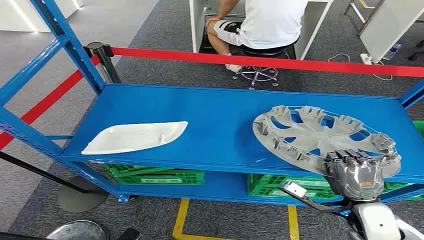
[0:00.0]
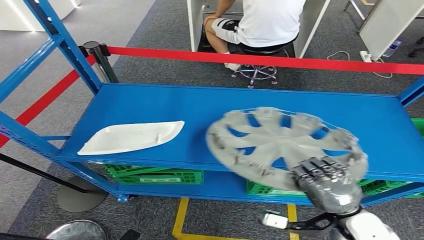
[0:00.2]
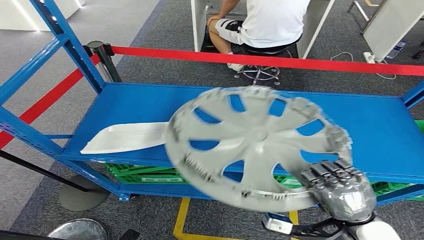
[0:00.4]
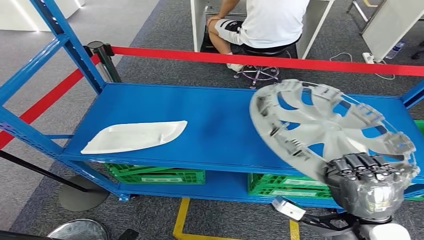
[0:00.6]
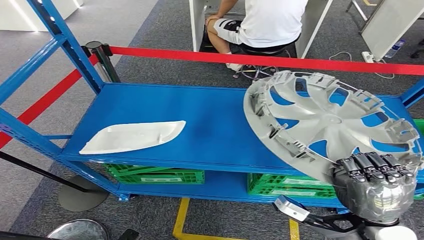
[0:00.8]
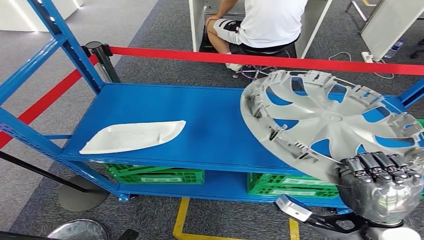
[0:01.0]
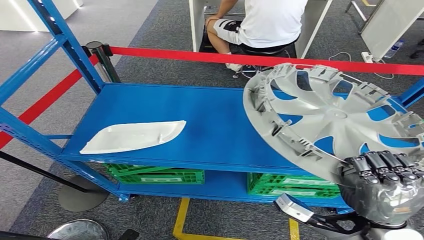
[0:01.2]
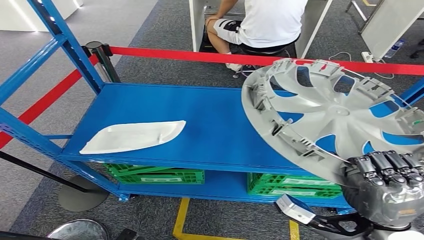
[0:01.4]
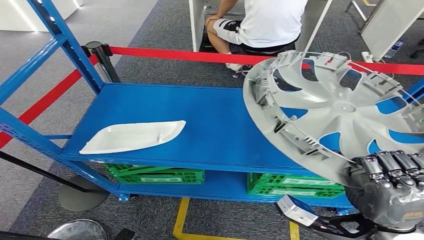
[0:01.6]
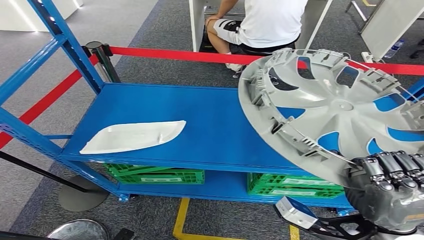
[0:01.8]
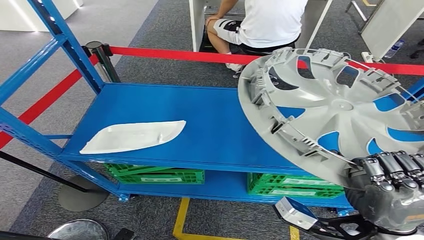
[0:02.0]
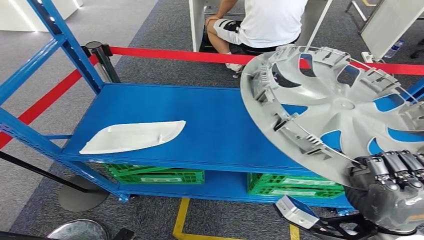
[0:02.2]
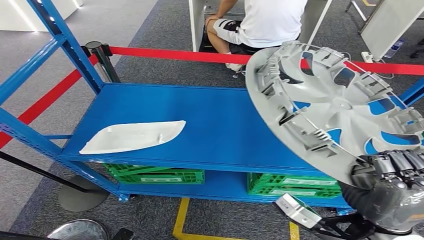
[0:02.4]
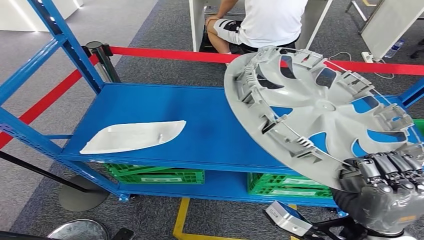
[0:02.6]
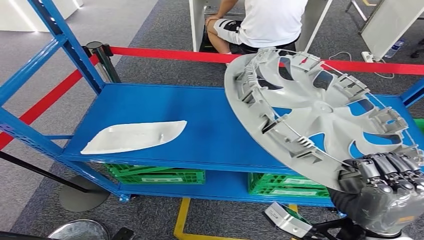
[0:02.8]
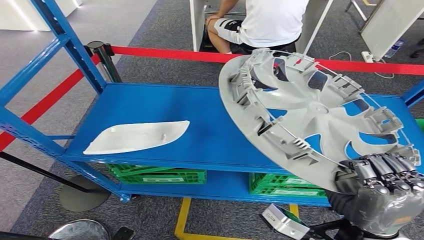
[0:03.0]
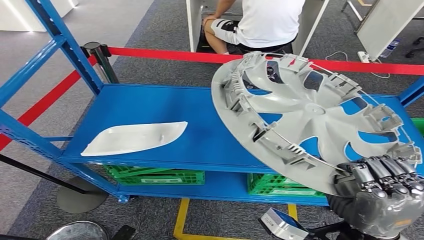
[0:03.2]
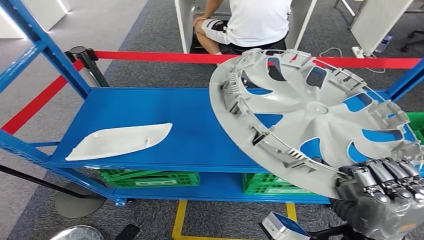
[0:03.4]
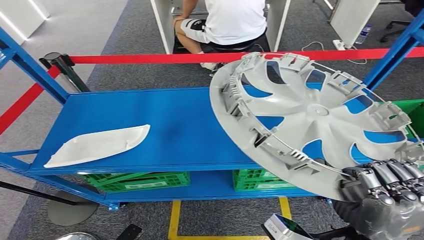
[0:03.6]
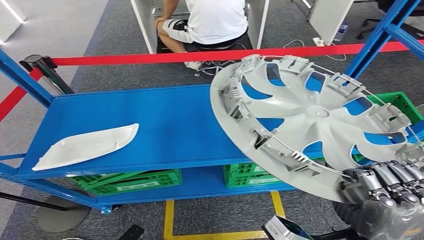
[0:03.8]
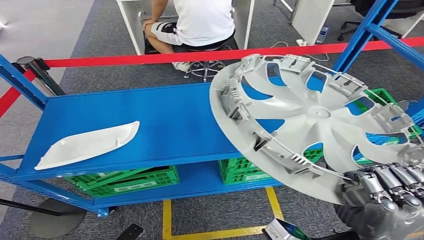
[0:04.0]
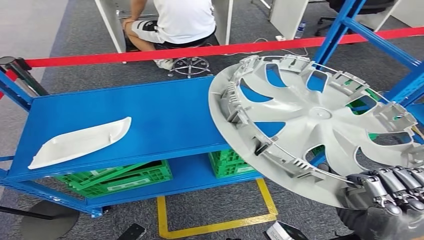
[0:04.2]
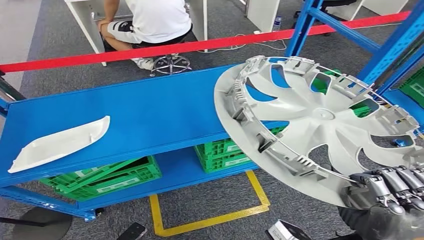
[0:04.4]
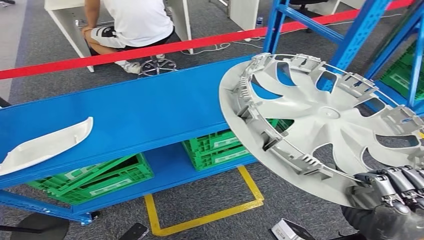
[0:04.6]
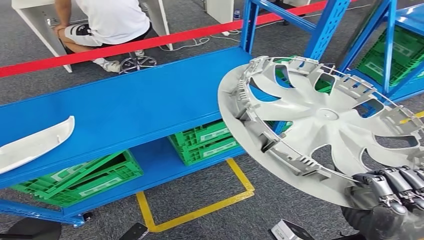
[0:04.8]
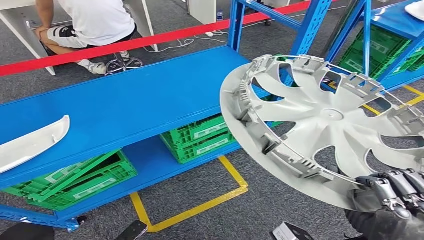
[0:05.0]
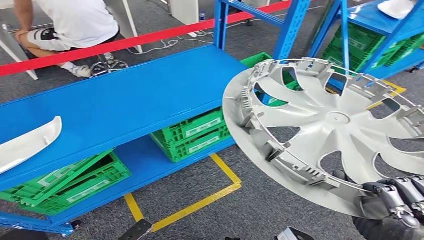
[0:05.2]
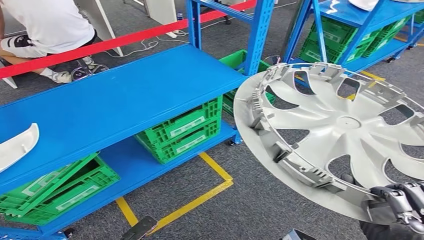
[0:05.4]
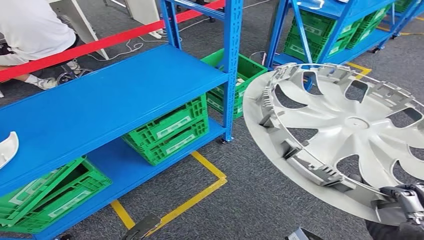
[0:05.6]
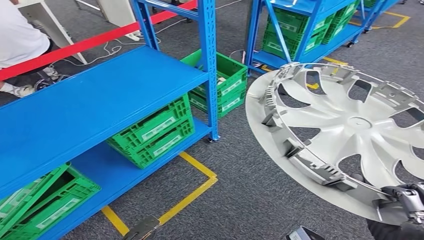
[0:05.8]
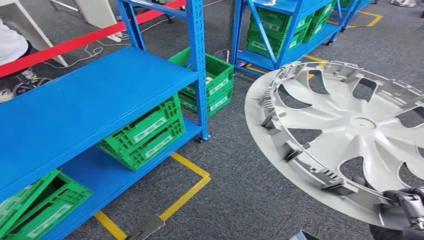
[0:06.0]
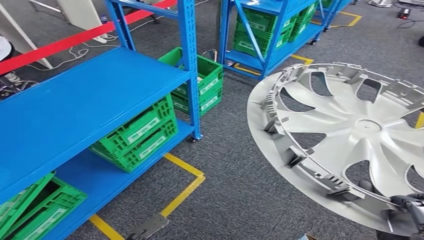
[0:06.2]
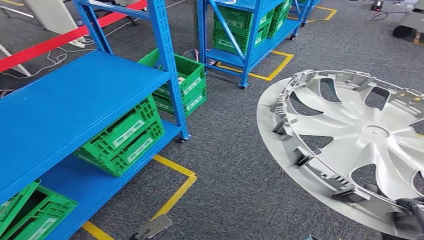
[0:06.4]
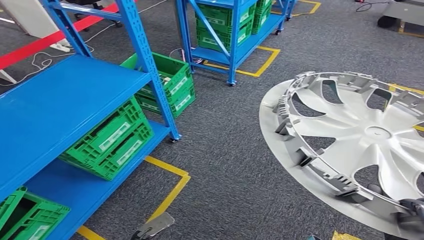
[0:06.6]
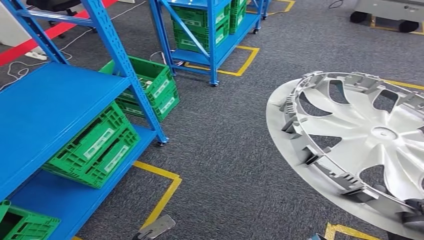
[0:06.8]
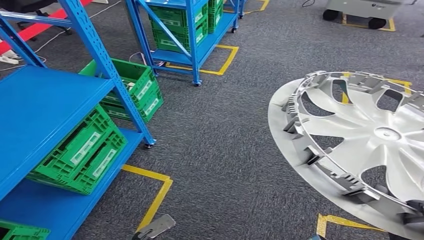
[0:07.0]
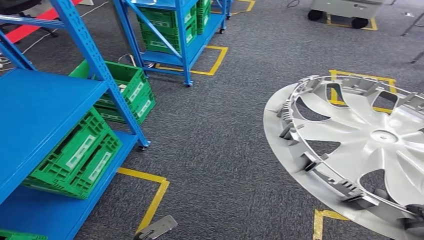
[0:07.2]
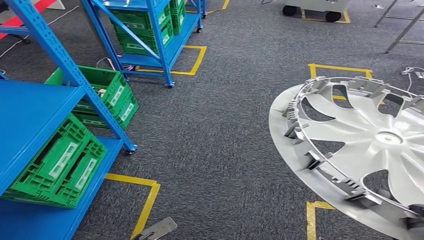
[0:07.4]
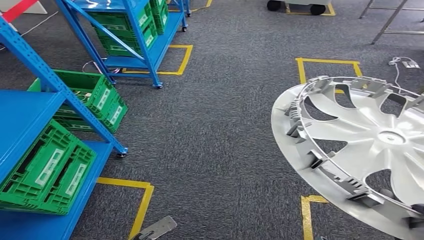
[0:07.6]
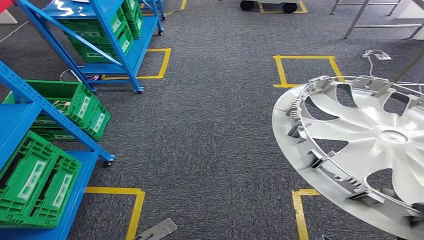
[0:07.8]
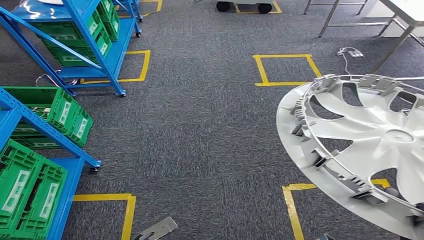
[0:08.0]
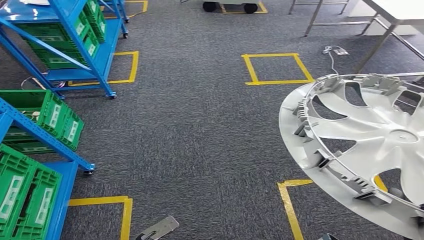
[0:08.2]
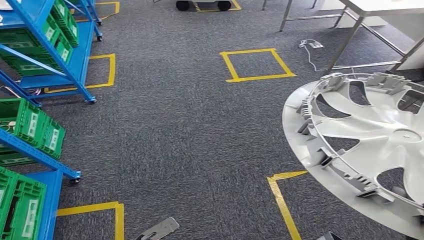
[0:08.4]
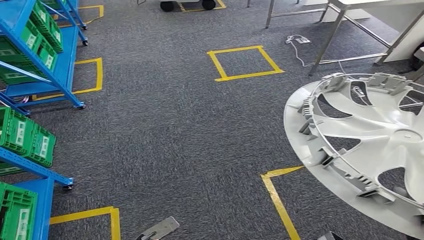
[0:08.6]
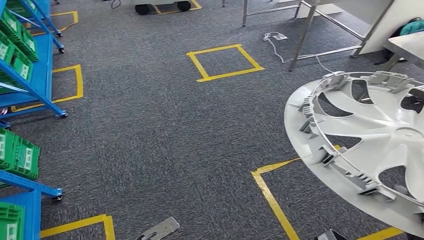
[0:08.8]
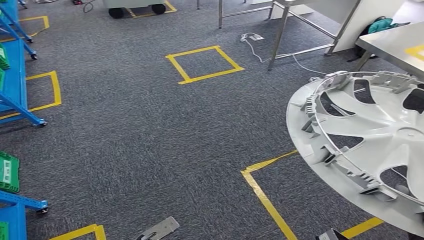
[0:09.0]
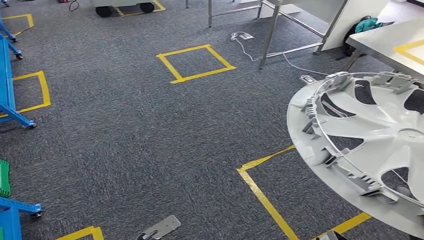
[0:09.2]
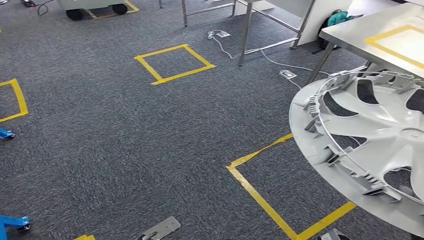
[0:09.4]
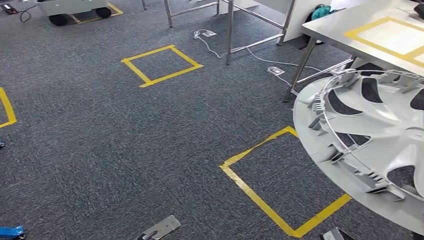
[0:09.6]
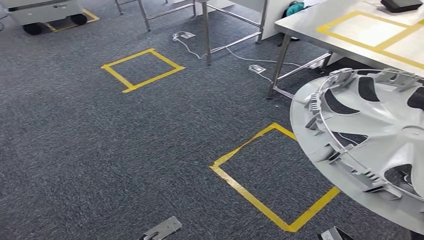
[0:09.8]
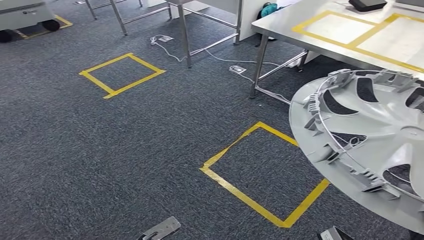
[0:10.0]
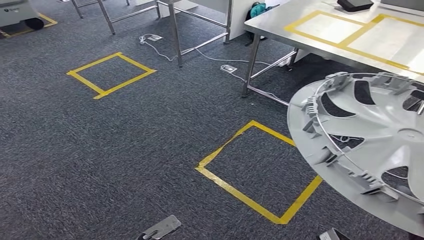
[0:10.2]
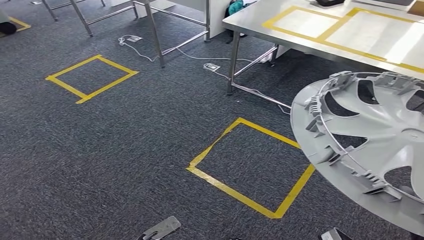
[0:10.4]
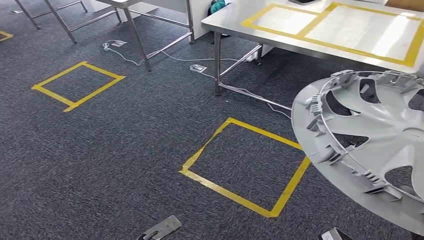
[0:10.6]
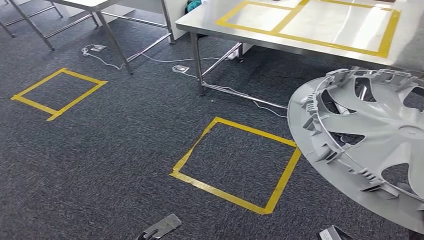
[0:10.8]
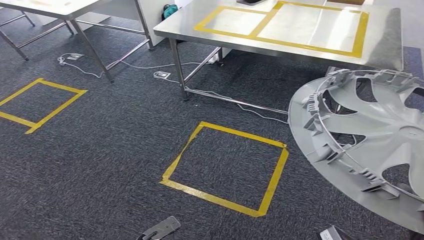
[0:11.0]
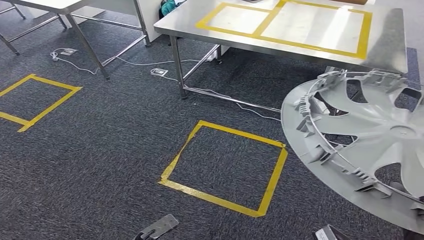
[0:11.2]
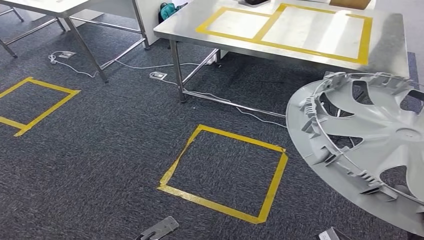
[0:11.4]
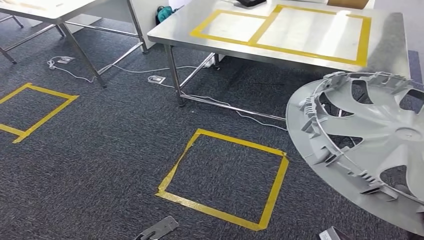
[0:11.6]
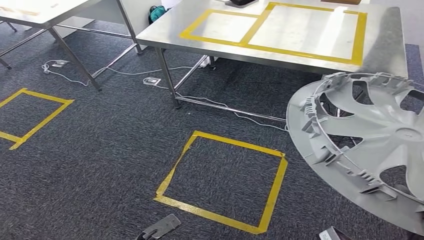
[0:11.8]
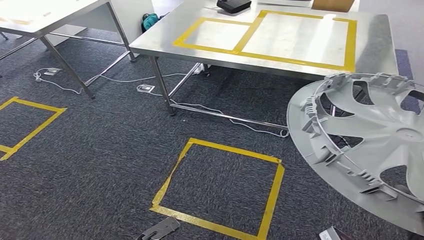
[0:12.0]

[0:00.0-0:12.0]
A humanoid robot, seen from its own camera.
Step, 0:00.0 to 0:03.0: Pick up the small component from the shelf.

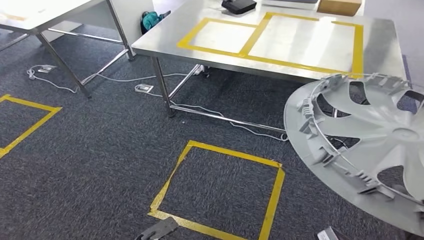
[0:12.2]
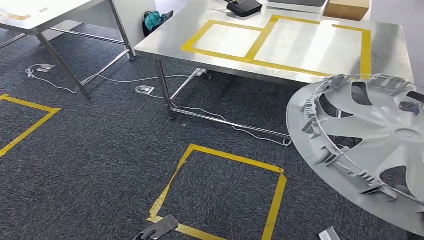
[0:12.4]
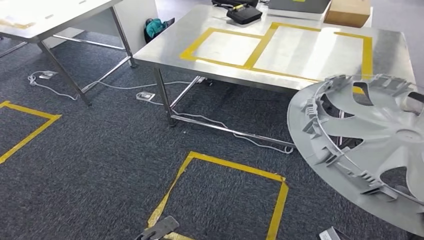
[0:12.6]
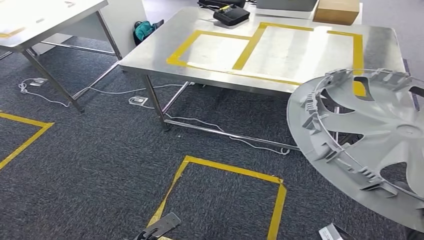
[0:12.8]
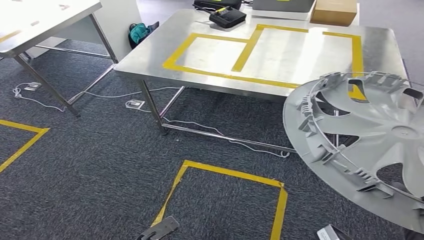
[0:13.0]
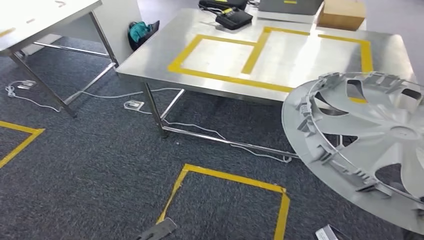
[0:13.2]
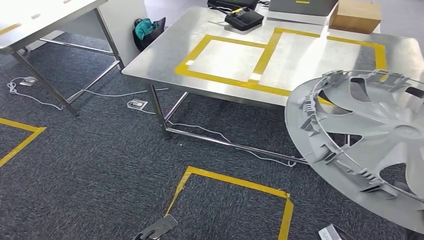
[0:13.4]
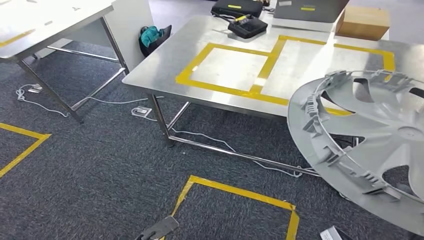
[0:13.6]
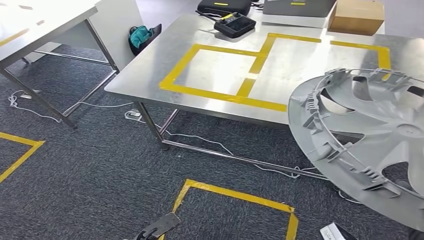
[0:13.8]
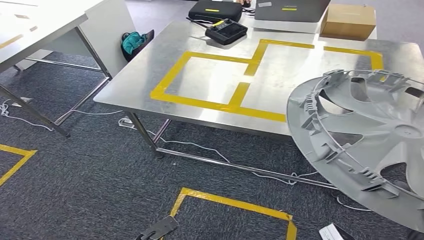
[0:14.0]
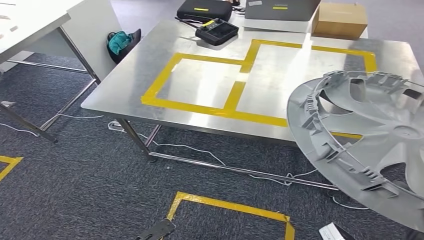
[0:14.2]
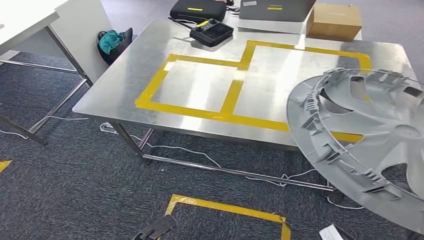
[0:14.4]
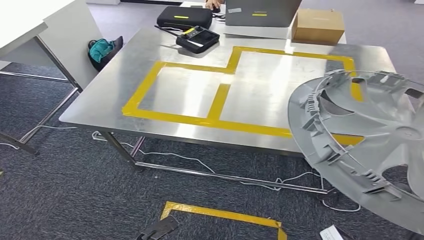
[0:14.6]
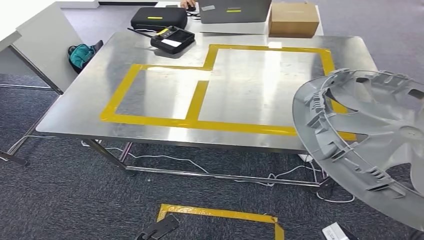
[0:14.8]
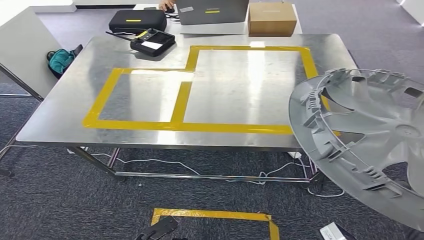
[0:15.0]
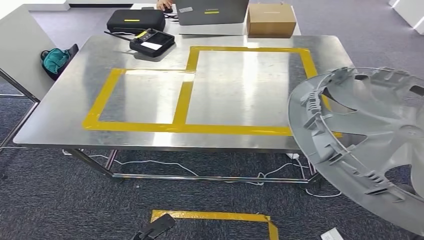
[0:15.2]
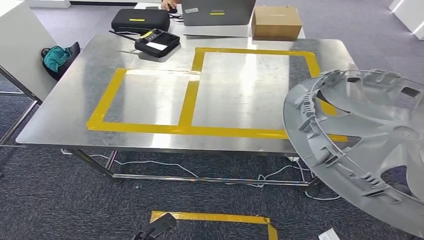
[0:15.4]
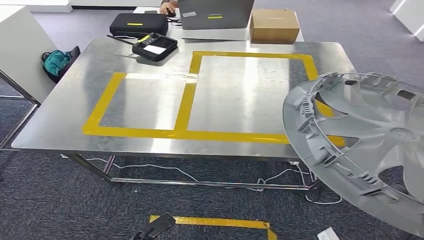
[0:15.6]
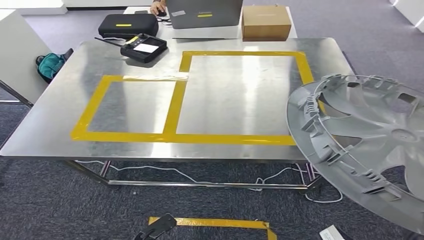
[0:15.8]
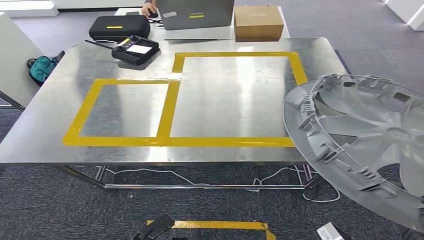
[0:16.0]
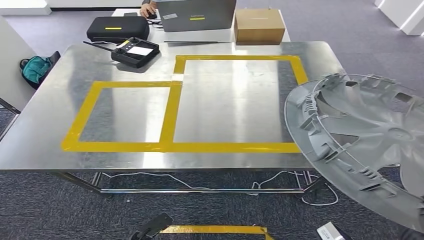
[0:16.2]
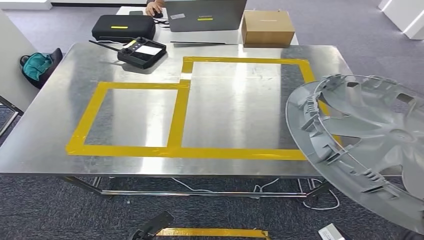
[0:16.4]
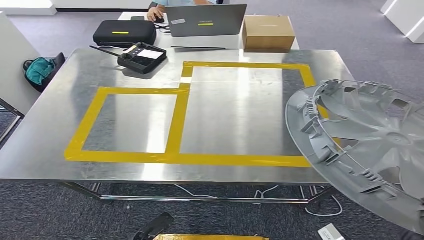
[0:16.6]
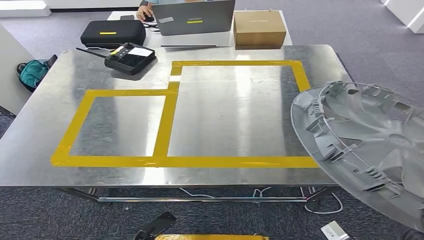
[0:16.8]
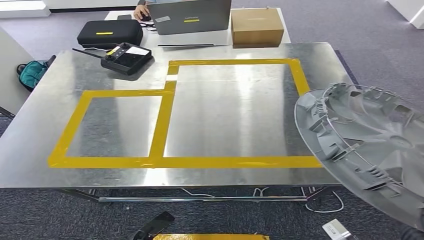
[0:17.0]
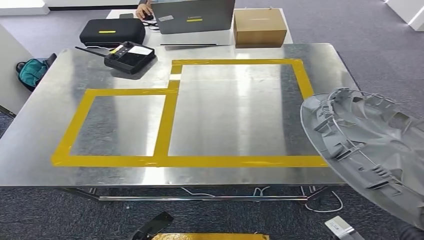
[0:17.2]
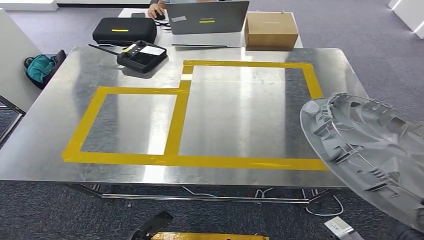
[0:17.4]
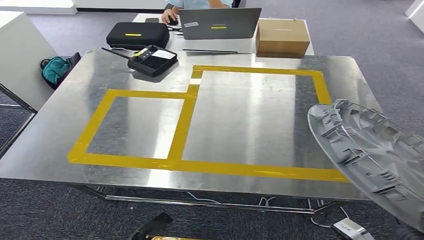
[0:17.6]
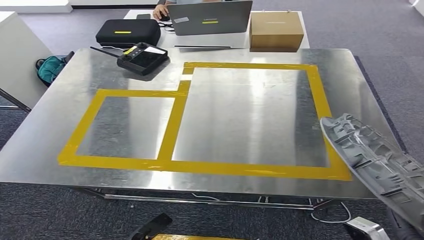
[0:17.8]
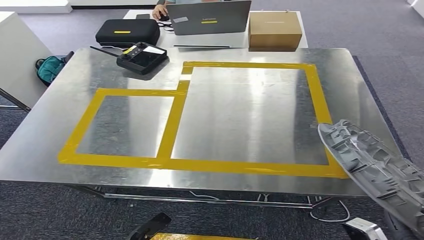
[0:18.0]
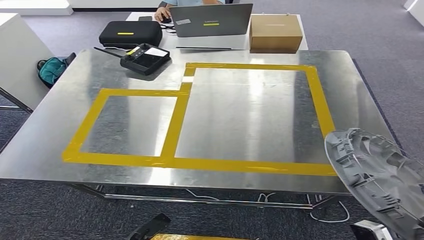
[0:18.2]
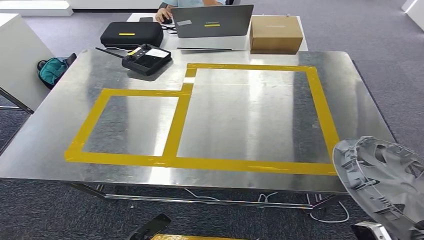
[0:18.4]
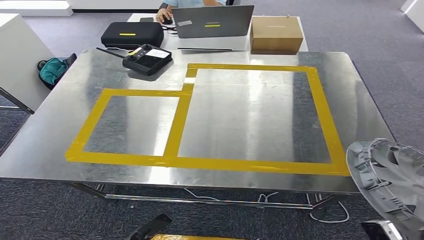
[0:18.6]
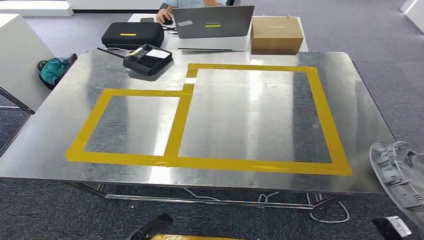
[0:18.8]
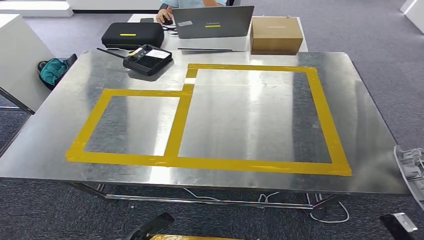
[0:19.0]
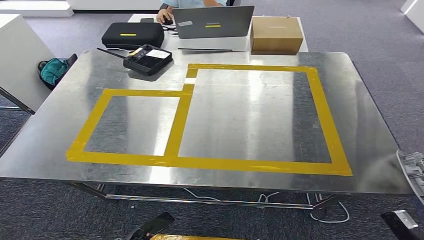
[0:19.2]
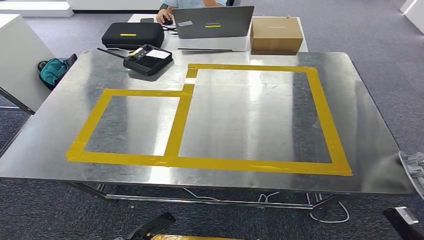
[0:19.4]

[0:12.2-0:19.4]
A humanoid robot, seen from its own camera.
Step, 0:12.2 to 0:18.4: Move the small component to the workbench.
